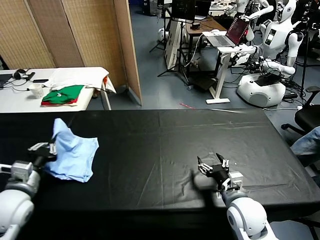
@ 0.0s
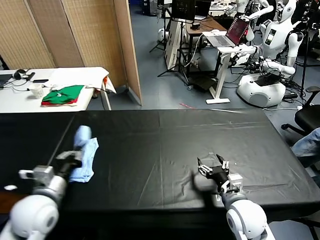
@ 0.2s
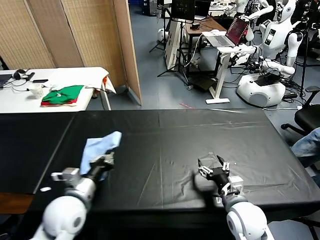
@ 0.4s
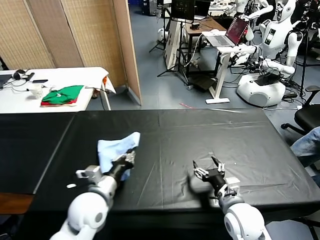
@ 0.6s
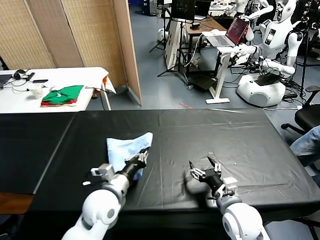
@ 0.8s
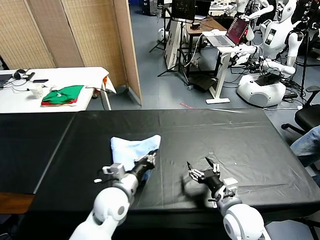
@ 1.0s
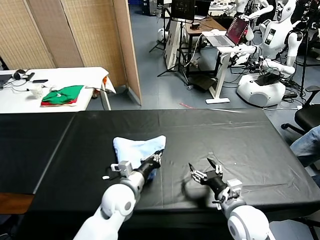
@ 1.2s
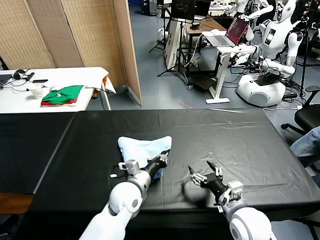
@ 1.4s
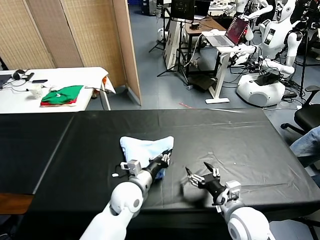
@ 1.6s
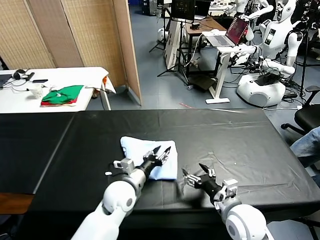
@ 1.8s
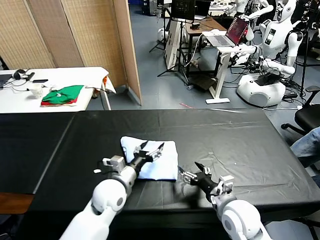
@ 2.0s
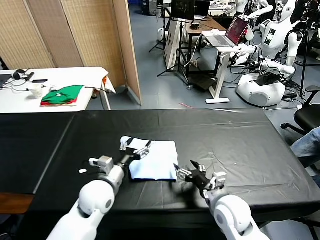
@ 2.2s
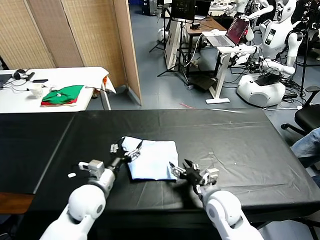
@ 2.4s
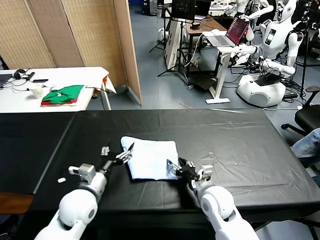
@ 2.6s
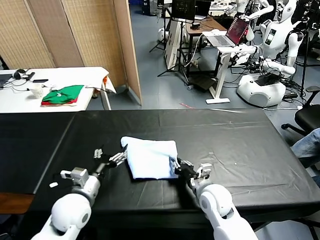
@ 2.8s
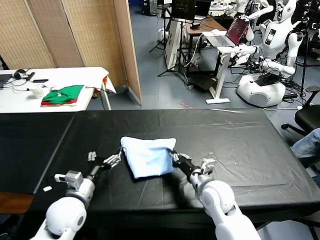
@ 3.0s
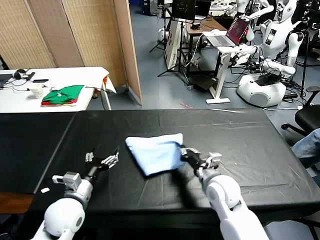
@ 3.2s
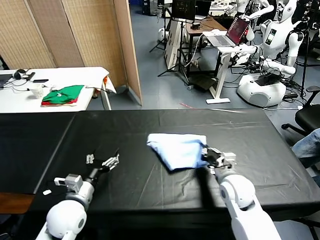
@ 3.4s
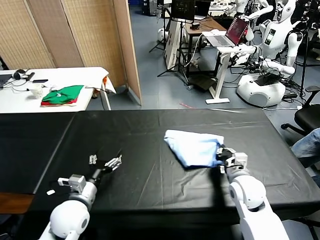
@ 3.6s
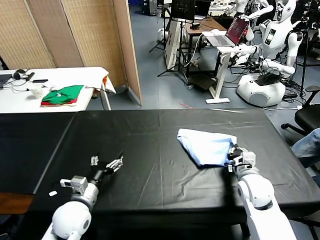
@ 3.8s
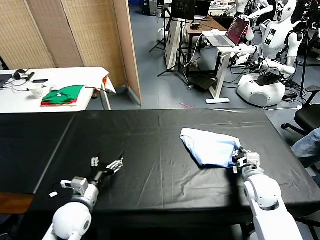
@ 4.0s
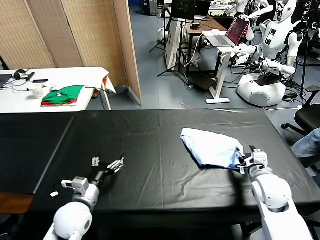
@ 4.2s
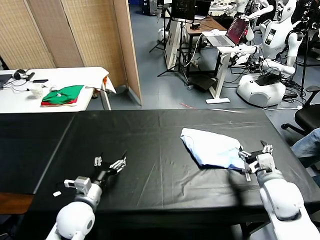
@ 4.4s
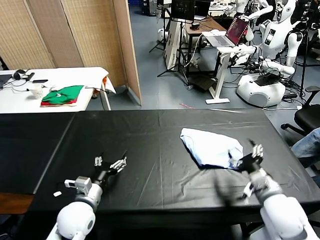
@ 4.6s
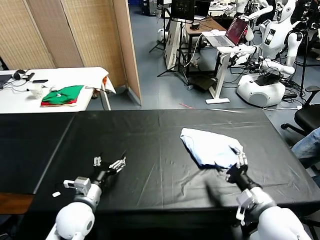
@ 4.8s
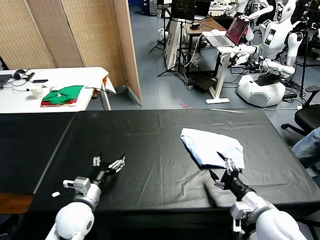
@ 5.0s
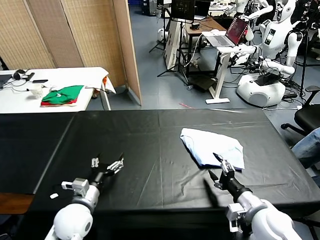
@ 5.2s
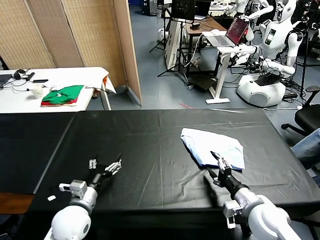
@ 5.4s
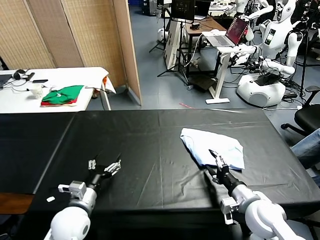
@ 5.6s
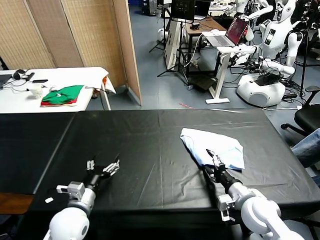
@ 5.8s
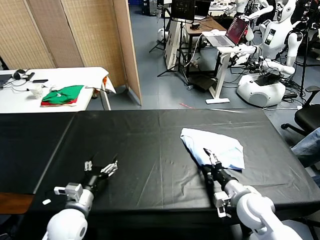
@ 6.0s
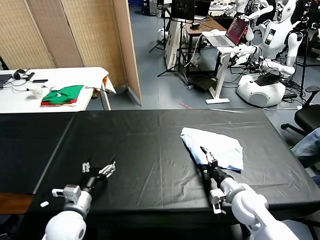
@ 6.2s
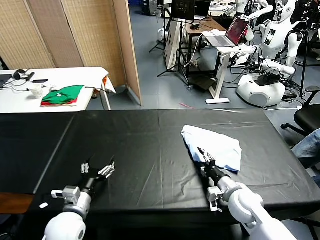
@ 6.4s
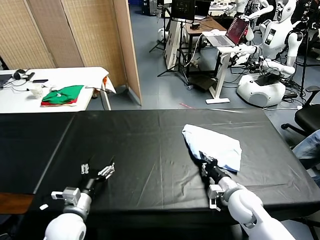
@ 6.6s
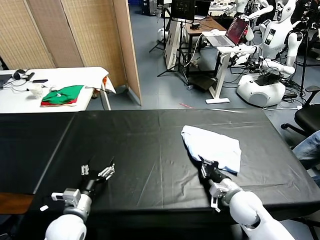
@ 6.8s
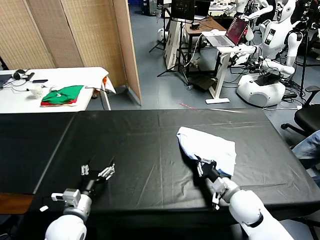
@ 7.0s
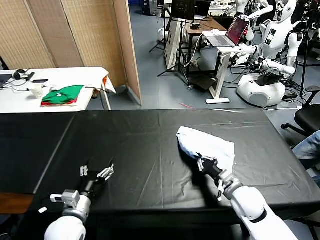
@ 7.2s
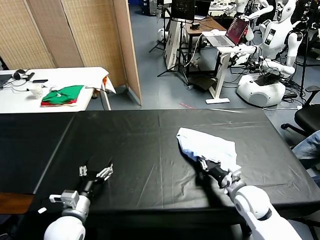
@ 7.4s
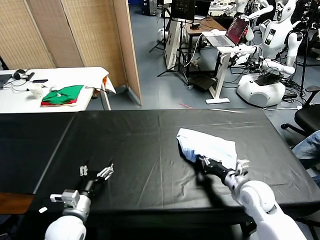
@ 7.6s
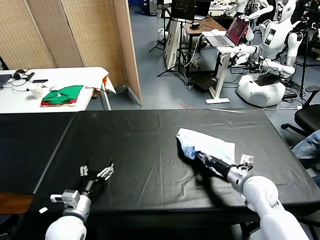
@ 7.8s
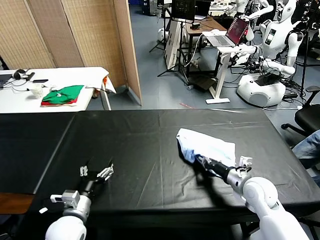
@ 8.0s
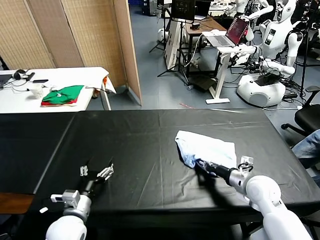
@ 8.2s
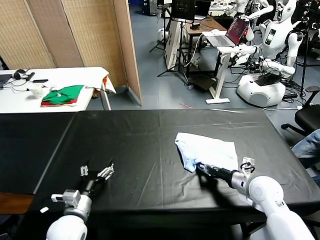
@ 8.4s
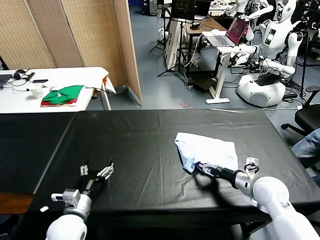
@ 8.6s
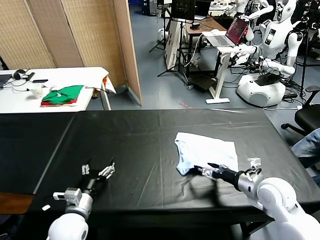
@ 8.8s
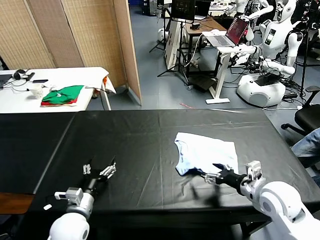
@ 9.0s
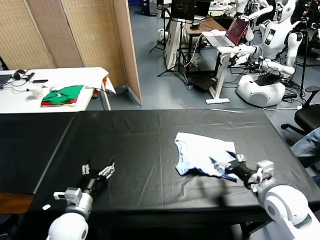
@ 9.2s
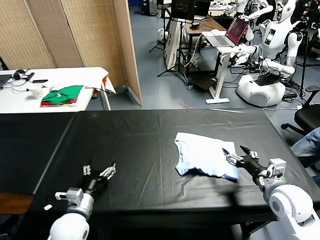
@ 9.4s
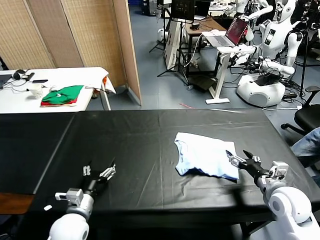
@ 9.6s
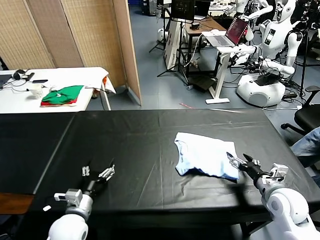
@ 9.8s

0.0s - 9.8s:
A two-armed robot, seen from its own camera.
Task of the whole recording: fold and organize the clothes.
0.0s - 1.4s: The left gripper is displaced to the right and downward by approximately 30 cm.
1.4s - 2.8s: The right gripper moves forward and to the left, about 10 cm, and closes; the left gripper is displaced to the left by approximately 15 cm, and opens.
2.8s - 4.2s: The right gripper shifts about 15 cm to the right, and opens.
4.2s - 5.6s: The right gripper is displaced backward by about 5 cm.
5.6s - 7.0s: The right gripper changes place by roughly 5 cm, and closes.
7.0s - 8.4s: The right gripper is displaced to the right by about 5 cm.
8.4s - 9.8s: The right gripper shifts some 5 cm backward, and opens its fingers.

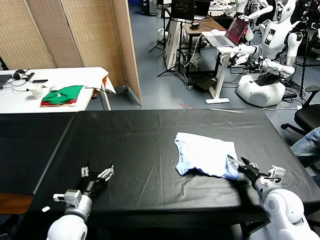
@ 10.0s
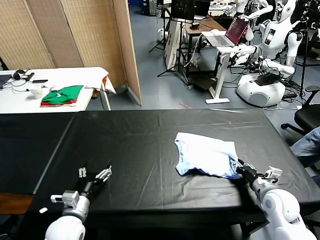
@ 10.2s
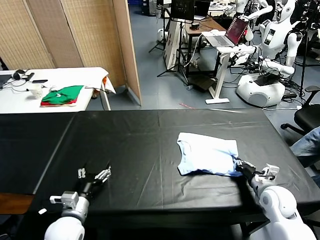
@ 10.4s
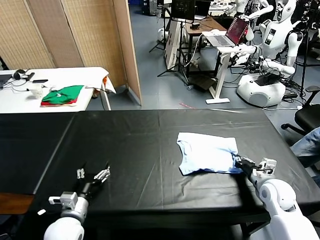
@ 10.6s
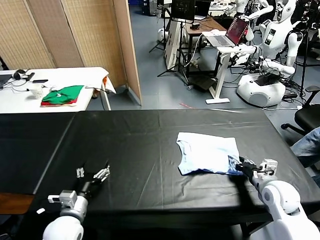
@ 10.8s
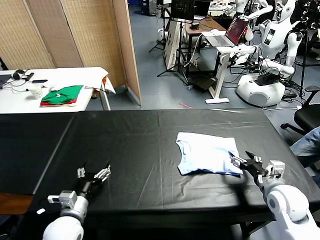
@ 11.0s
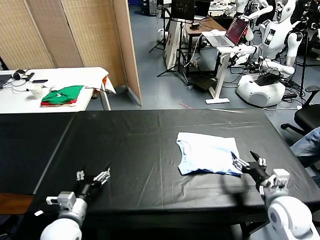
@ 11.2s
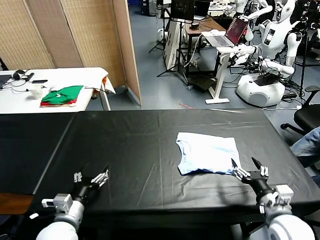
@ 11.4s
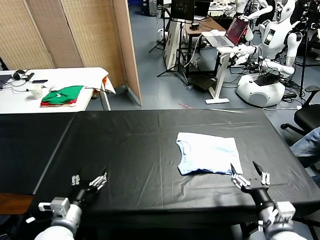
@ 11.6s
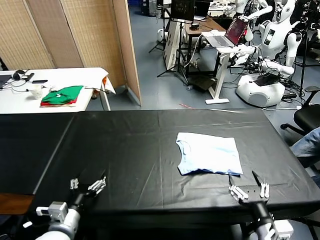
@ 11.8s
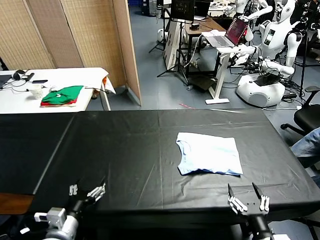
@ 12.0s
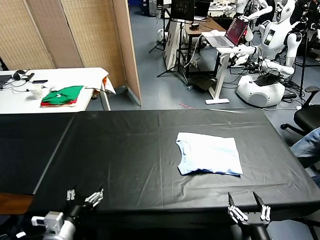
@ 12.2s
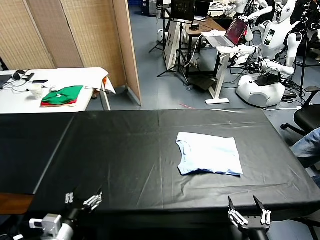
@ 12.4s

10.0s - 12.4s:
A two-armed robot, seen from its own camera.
Task of the whole recording: fold and organize the clothes.
10.0s - 11.2s: The right gripper closes and opens again.
11.2s - 12.4s: The right gripper travels backward and to the left by about 20 cm. Meanwhile the left gripper heads backward, covering roughly 5 cm.
